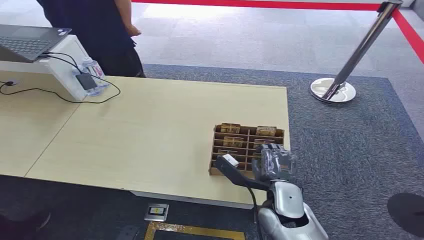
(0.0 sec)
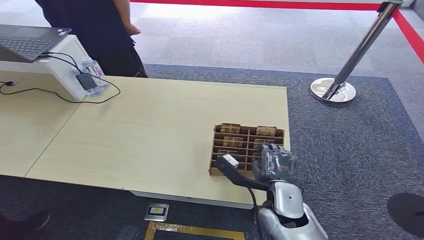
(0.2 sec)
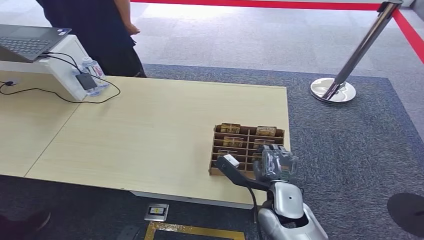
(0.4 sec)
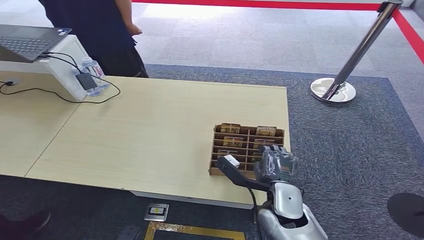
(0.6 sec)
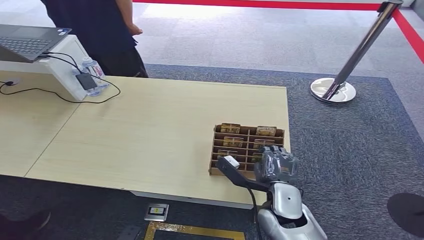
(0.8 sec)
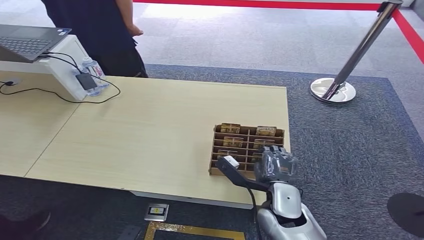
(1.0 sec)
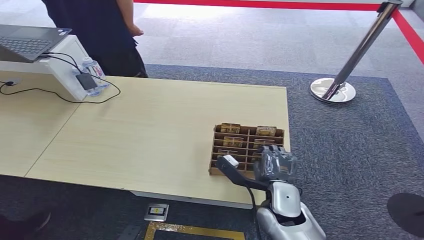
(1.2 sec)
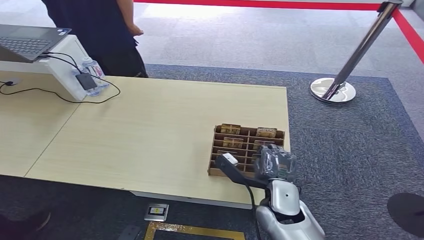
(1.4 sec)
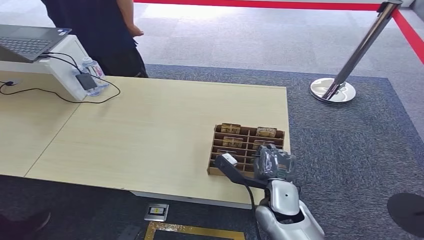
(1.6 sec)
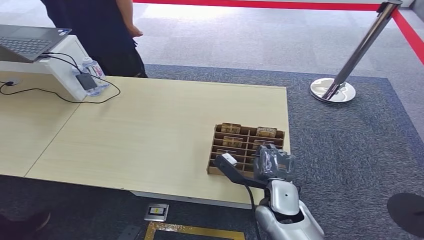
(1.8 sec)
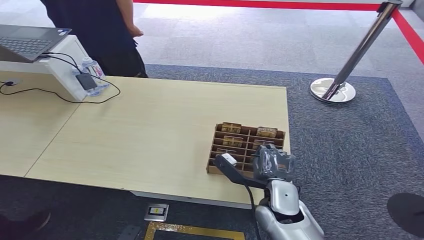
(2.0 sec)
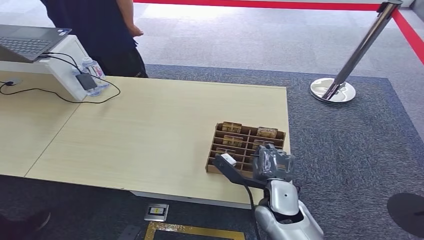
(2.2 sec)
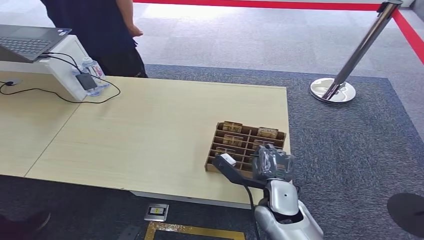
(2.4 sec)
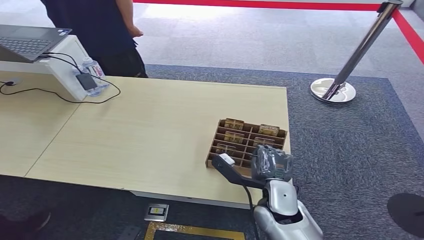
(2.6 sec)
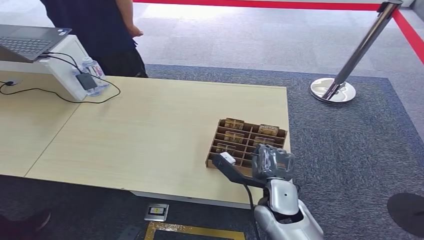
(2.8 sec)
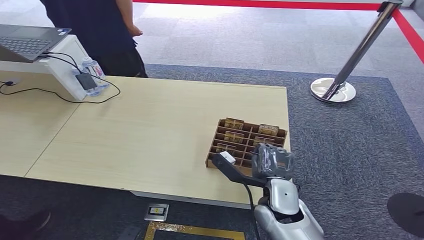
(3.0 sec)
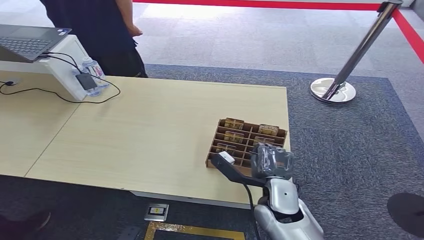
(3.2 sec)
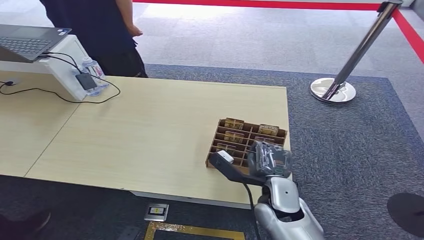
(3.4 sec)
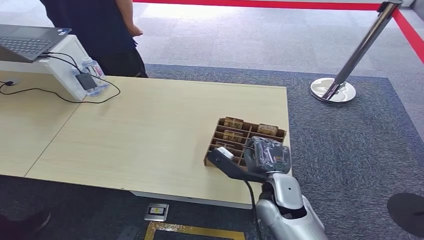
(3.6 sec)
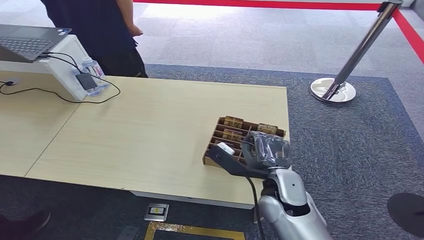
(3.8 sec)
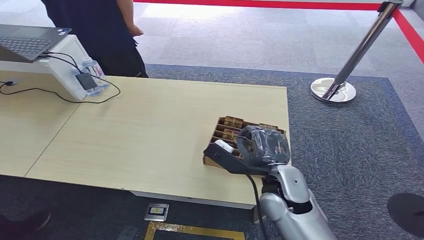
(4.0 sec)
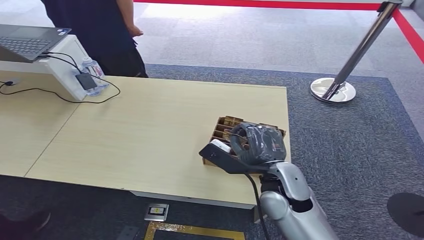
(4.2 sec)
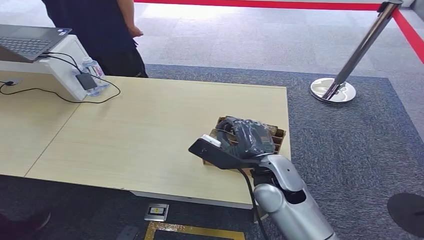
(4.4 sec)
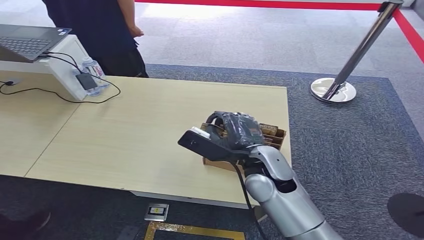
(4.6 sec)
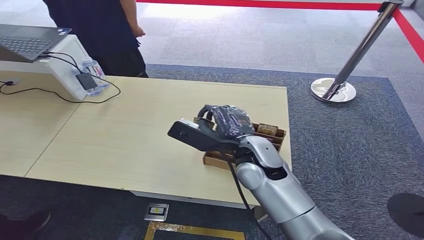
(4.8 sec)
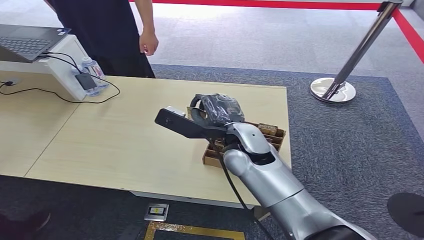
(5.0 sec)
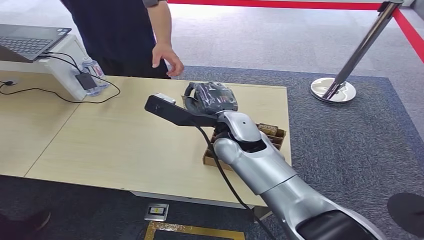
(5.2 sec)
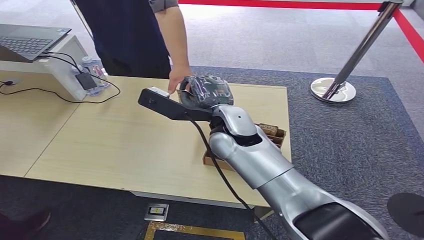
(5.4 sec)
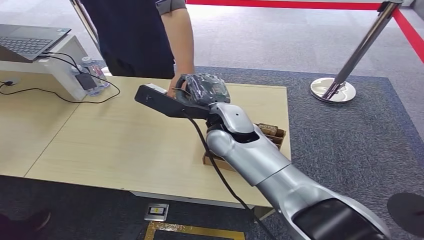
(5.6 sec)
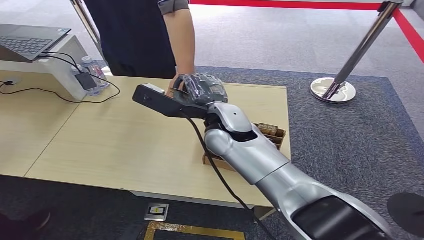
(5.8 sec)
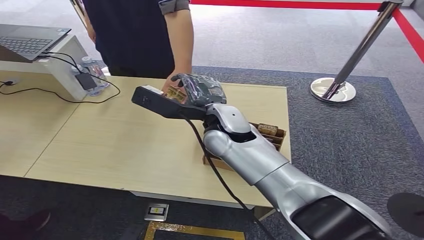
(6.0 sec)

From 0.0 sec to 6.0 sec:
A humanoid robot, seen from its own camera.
Step, from 0.0 sec to 5.0 sec: Pick up the key card from the card box.
Step, from 5.2 sec to 6.0 sec: Hand the key card to the target.
From 1.6 sec to 3.0 sec: Both hands stay about where they are.
From 3.0 sec to 4.4 sec: The right hand moves upward, some 10 cm.

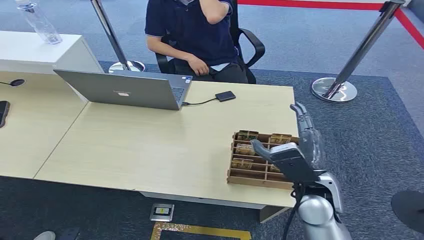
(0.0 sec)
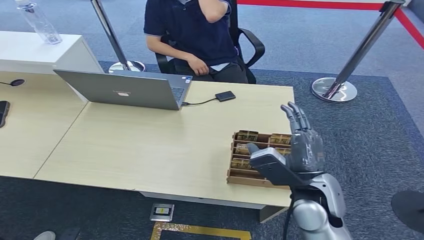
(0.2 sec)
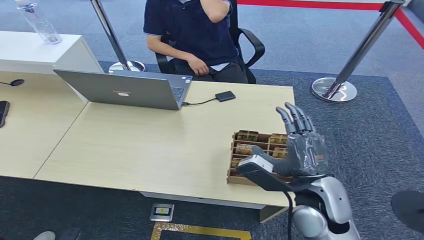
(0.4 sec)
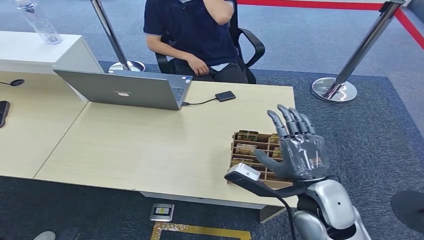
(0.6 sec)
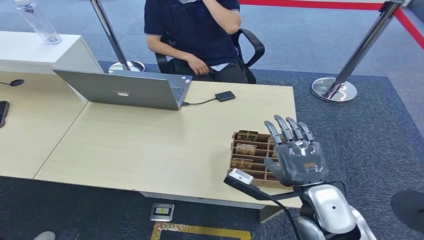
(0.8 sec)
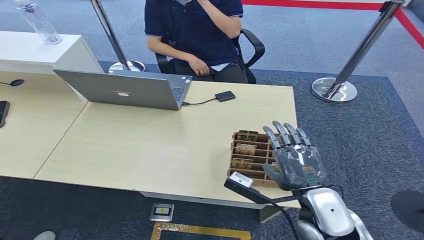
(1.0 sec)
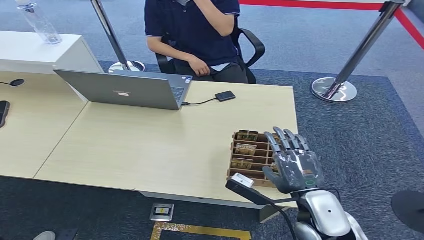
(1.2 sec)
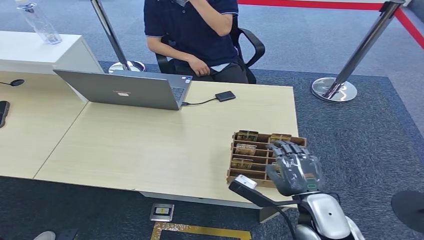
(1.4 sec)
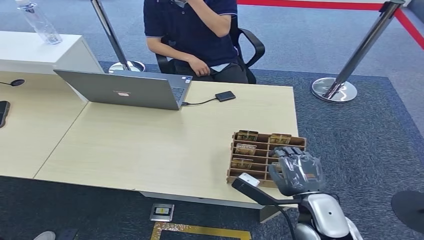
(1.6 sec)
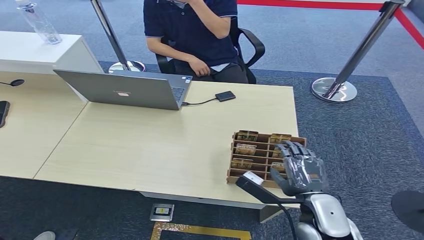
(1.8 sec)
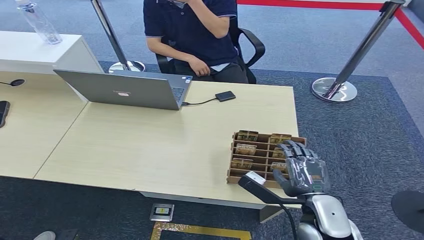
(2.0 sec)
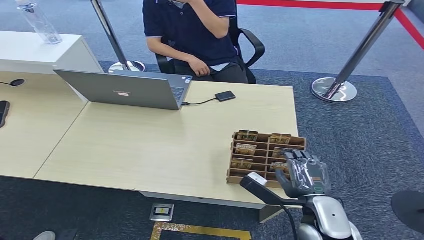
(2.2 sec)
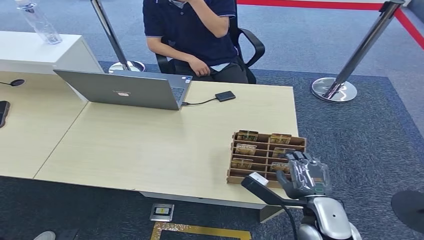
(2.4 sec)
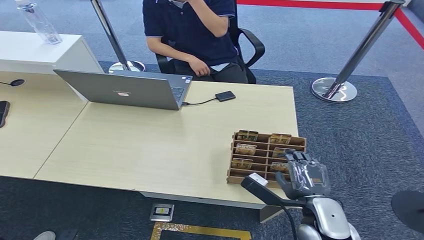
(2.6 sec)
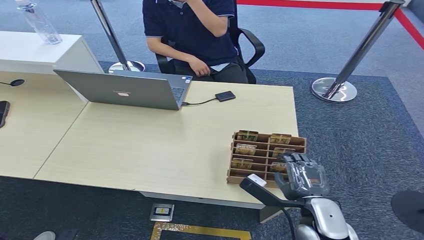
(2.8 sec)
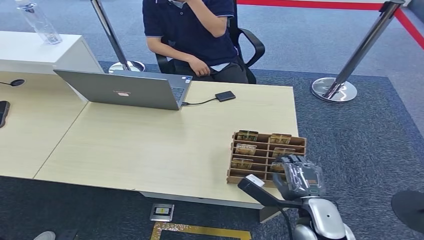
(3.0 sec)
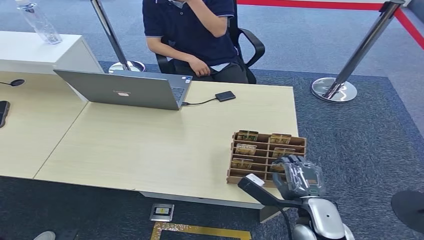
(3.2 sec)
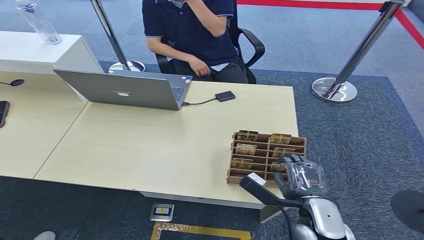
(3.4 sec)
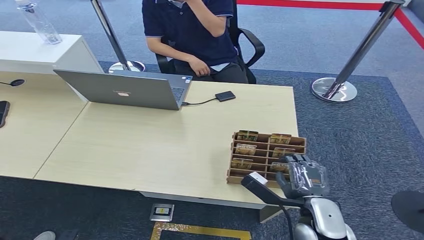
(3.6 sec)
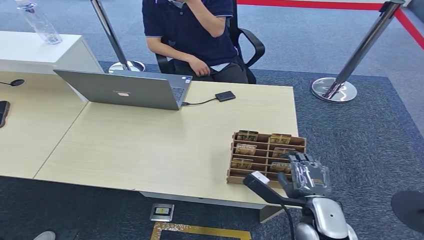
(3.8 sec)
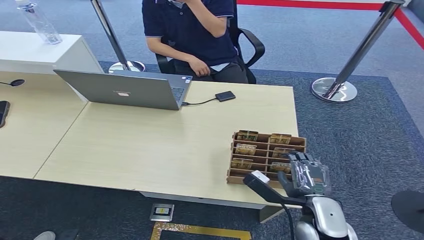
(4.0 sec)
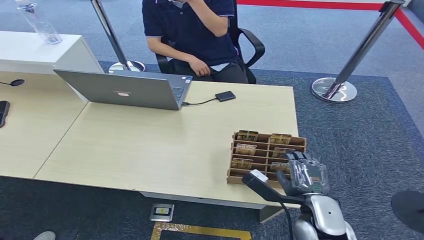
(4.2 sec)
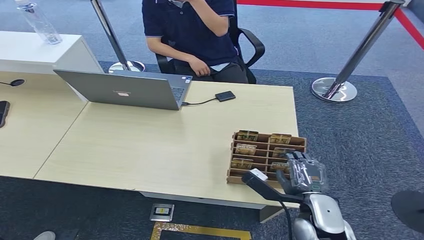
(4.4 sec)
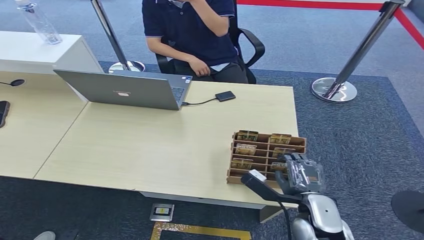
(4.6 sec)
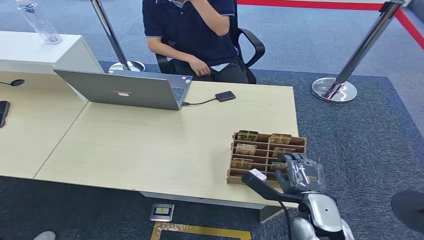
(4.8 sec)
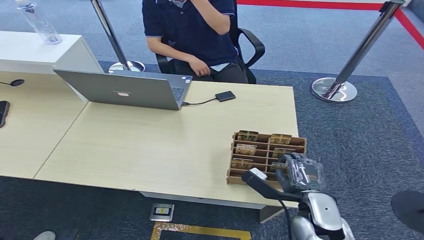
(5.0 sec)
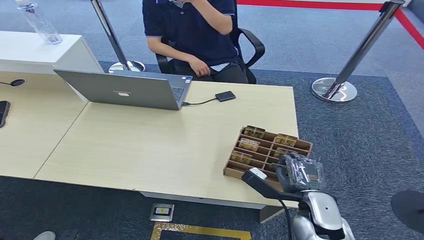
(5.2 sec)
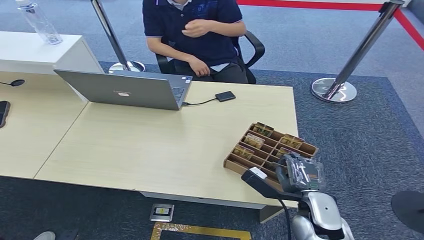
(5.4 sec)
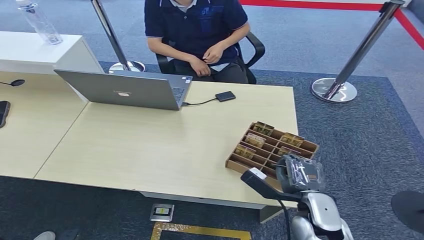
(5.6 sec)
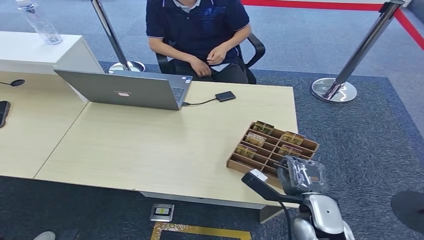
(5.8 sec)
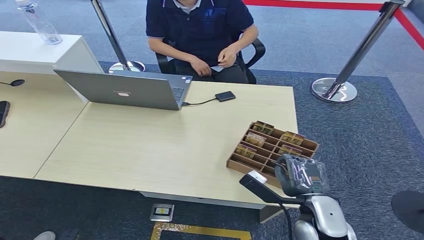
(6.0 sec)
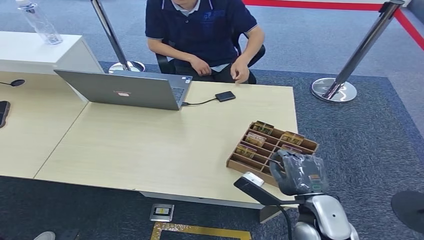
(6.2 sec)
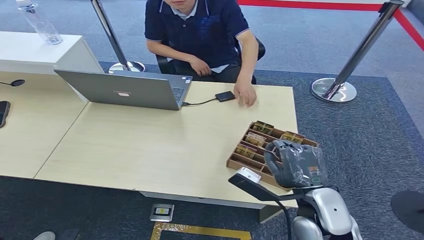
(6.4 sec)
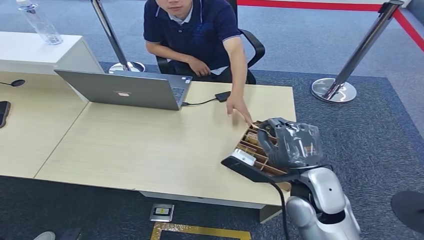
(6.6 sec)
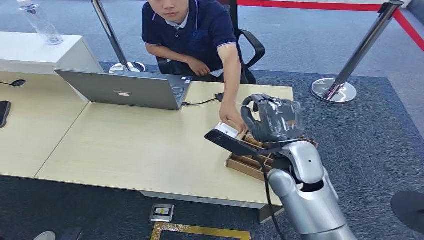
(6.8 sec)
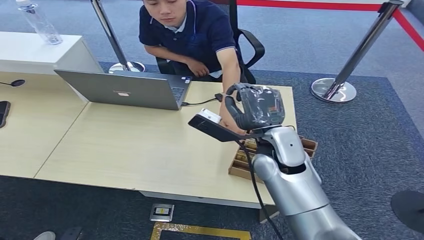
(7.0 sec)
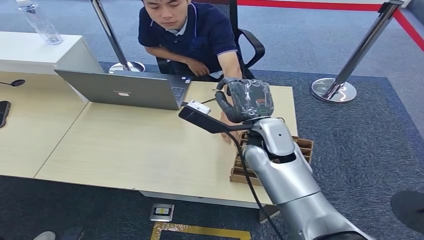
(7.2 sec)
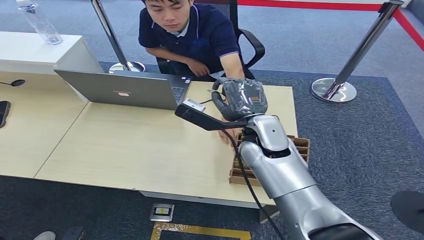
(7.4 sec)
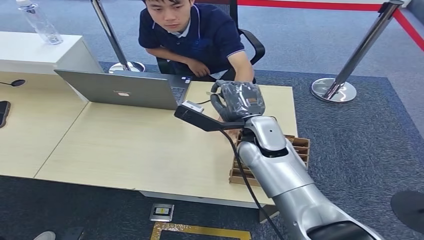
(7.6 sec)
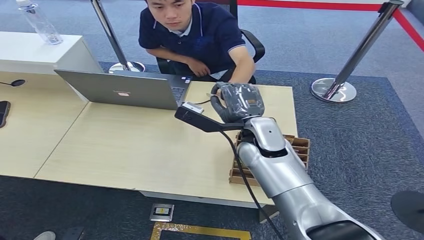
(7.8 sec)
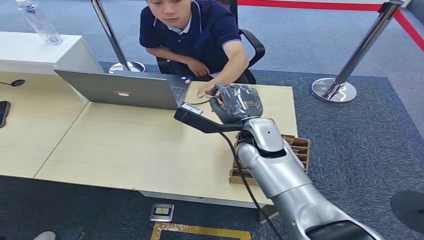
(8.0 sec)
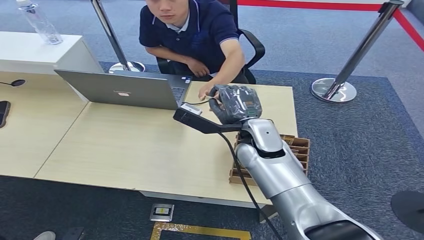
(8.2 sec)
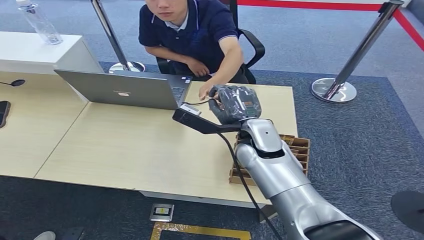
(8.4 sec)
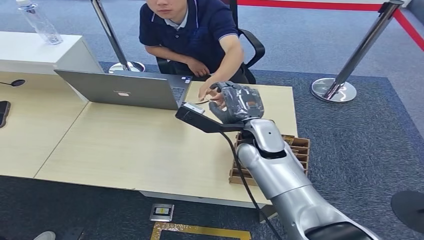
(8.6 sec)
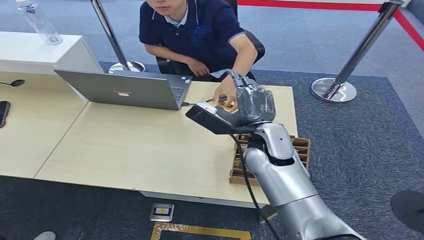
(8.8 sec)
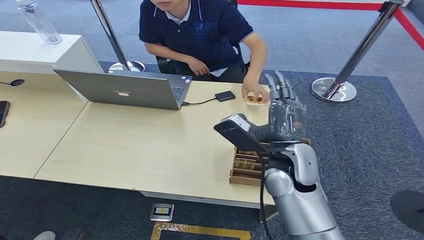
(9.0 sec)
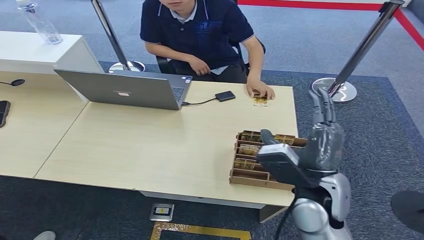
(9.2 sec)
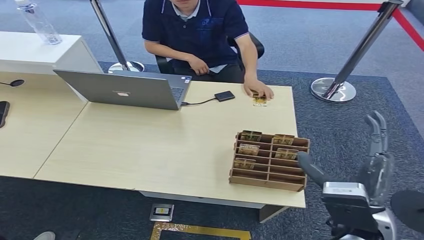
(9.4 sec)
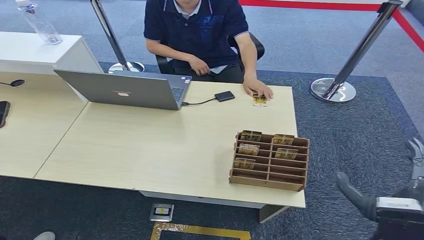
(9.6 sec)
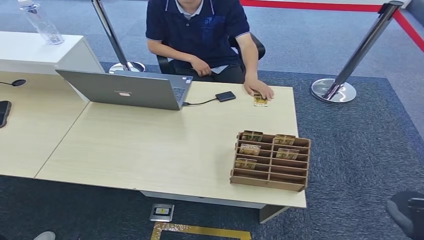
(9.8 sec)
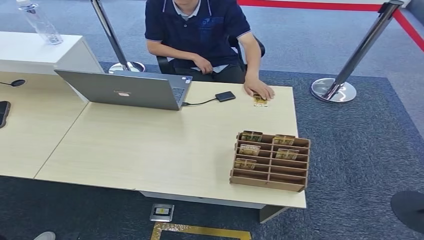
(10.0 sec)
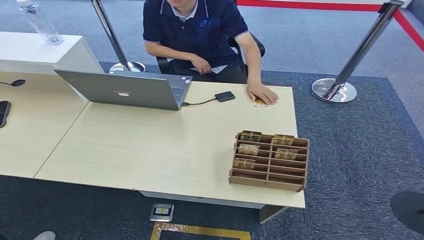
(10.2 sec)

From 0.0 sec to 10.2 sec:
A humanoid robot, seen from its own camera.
Step, from 0.0 sec to 7.0 sec: Pick up the key card from the card box.
Step, from 7.2 sec to 10.2 sec: Hand the key card to the target.
From 1.4 sec to 3.0 sec: There are only small adjustments of the hands.
From 3.0 sec to 4.4 sec: Neither hand changes place.
From 4.4 sec to 5.8 sec: Neither hand changes place.
From 5.8 sec to 7.2 sec: The right hand goes approximately 25 cm forward, upward and to the left.
From 7.2 sec to 8.8 sec: There are only small adjustments of the hands.
From 8.8 sec to 10.2 sec: The right hand heads backward, downward and to the right, covering approximately 50 cm.
